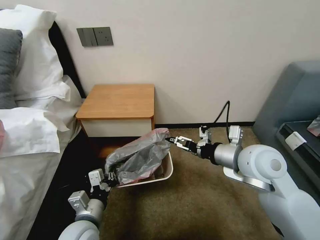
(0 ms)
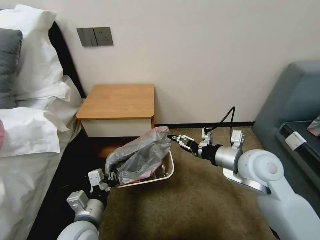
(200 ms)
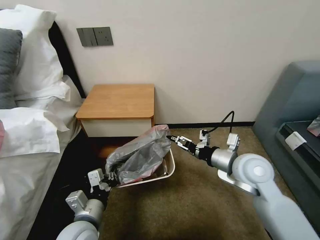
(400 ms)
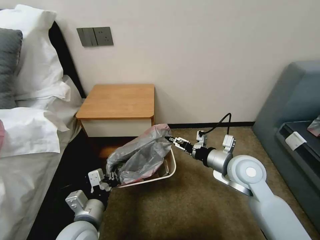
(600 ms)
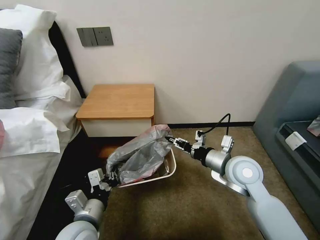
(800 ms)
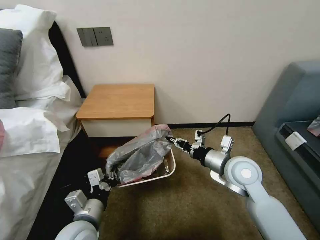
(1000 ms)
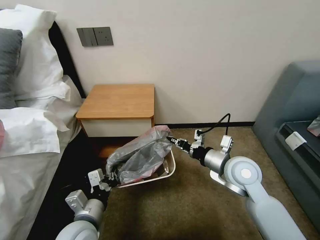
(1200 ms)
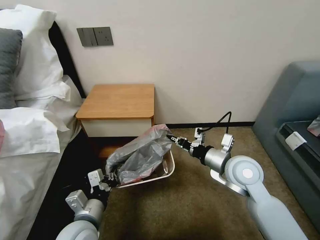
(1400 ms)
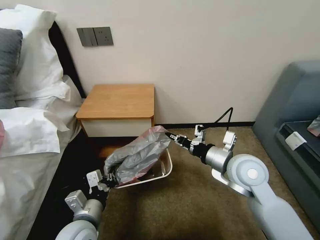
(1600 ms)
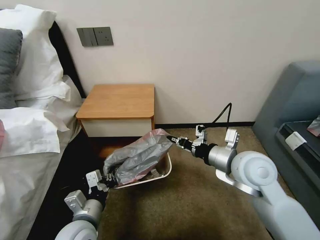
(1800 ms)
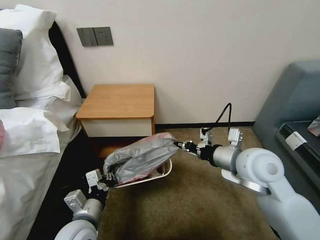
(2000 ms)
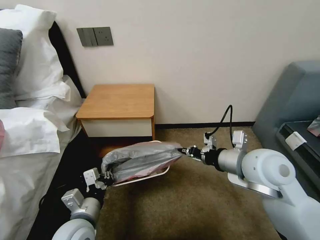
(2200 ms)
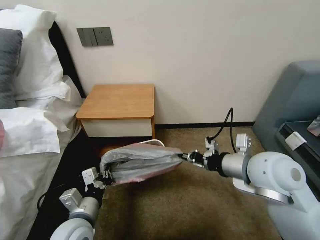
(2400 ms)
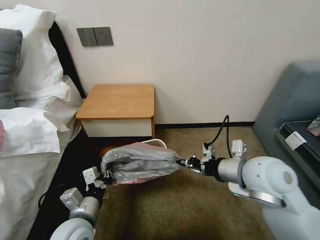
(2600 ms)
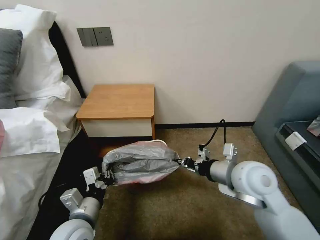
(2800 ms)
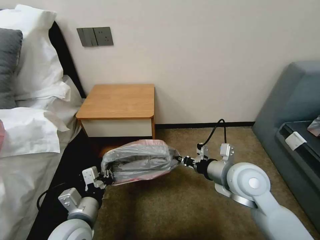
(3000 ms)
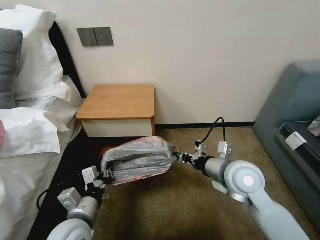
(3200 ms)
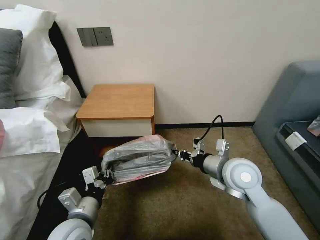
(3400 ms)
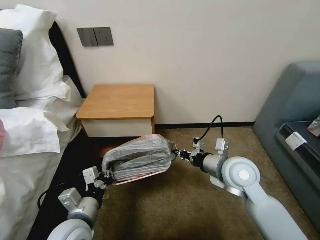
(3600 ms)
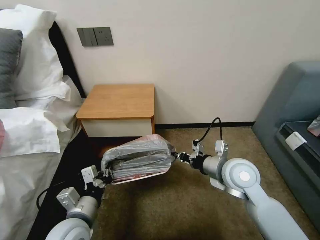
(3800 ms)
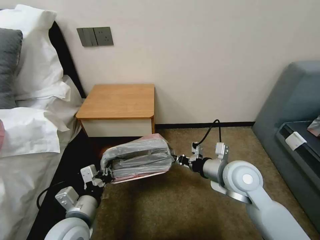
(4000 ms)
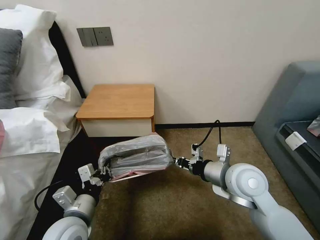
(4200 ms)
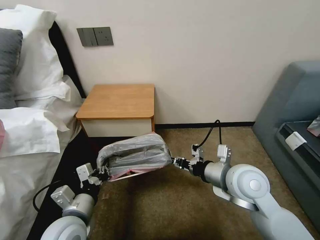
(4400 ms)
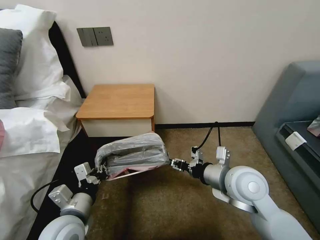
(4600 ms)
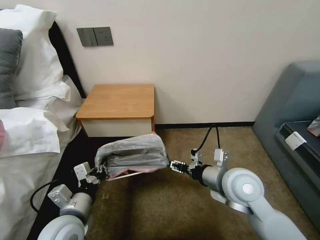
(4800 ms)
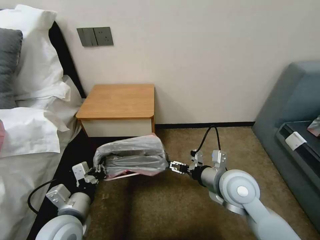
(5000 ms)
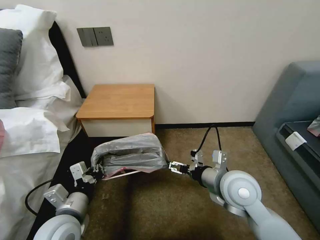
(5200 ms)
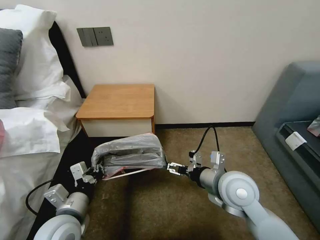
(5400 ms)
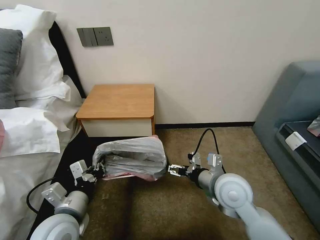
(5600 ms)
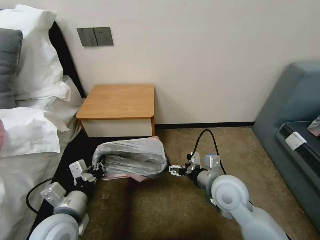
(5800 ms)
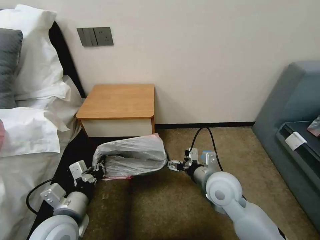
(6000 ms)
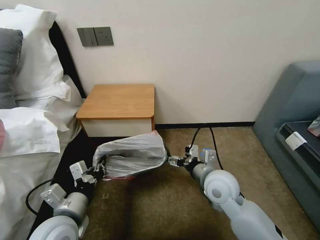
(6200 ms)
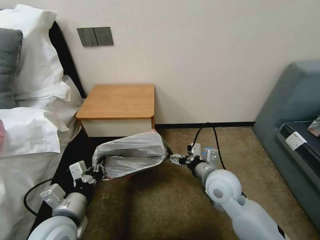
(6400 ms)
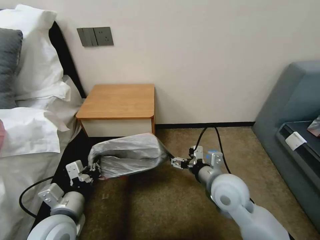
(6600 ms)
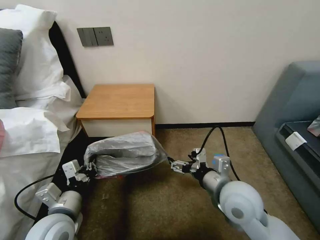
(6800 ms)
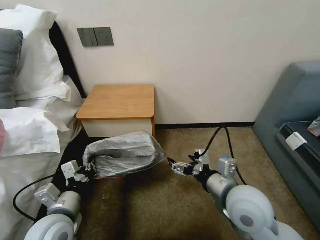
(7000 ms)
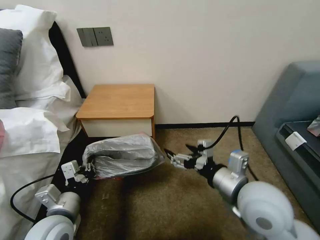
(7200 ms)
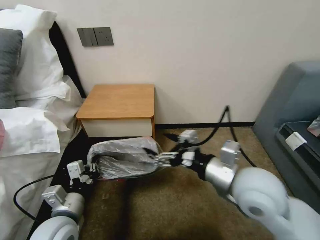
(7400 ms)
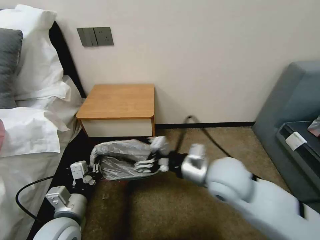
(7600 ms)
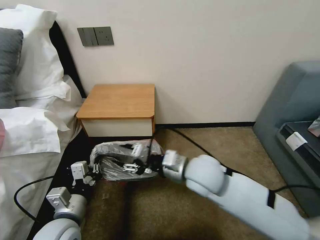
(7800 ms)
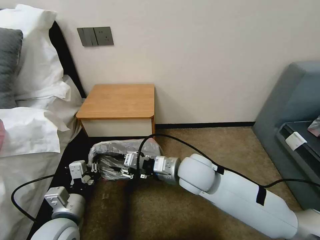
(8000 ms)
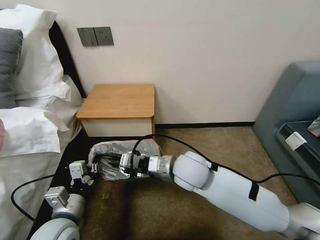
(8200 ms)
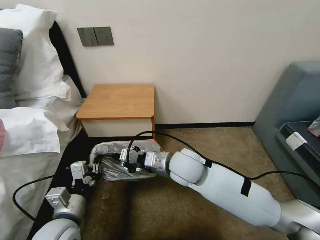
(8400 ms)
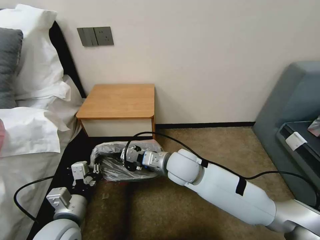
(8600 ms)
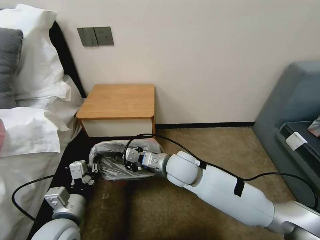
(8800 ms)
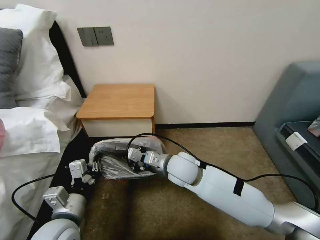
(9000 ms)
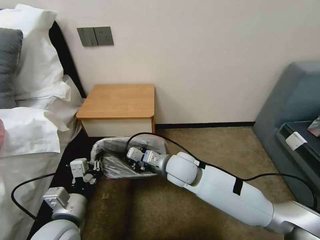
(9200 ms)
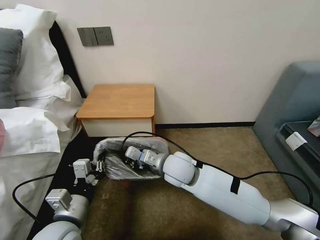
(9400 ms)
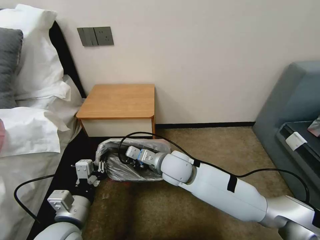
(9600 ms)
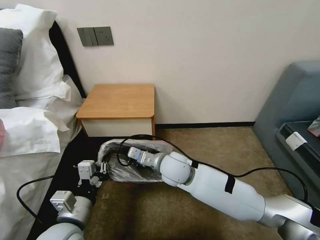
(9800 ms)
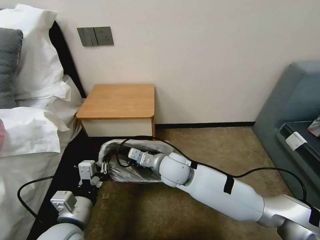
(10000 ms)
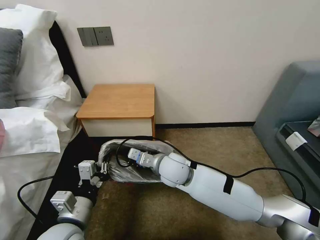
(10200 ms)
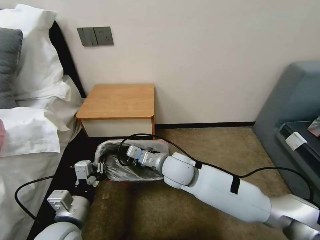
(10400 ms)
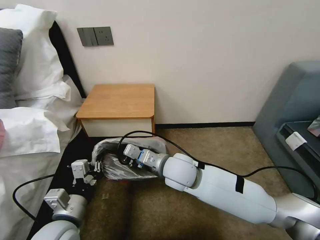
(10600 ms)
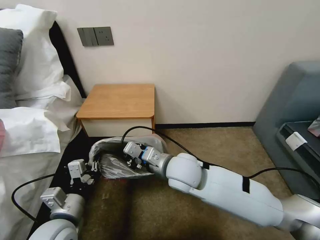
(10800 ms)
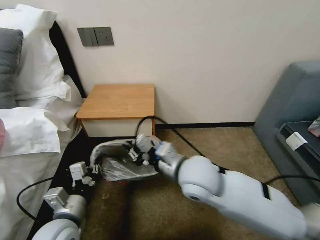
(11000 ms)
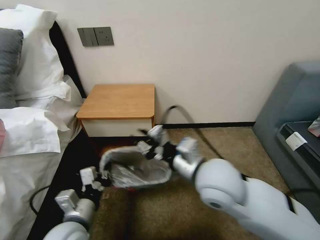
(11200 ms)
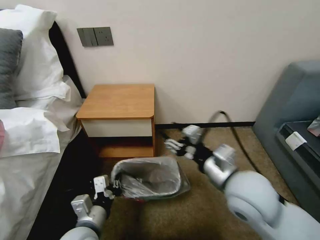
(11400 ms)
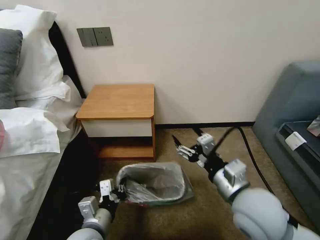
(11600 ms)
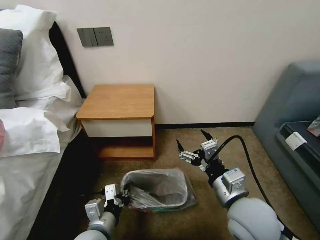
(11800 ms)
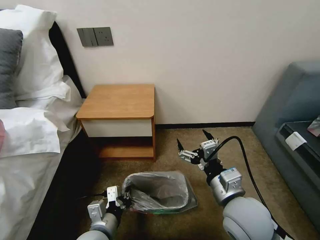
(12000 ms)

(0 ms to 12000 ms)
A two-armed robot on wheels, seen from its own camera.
Task of the whole recording: Pick up the garbage bag from the table and place it over the trash can.
0 ms - 1600 ms: The right gripper closes its fingers.
3000 ms - 4400 ms: The grippers make only small movements.
4400 ms - 6000 ms: The right gripper shifts roughly 5 cm downward, and opens.
6000 ms - 7600 ms: The right gripper heads upward, covering some 10 cm.
7600 ms - 9000 ms: The right gripper goes roughly 15 cm to the left, downward and forward, and closes up.
9000 ms - 10400 ms: There are only small adjustments of the grippers.
10400 ms - 12000 ms: The right gripper is displaced to the right and backward by roughly 20 cm, and opens its fingers, while the left gripper shifts some 10 cm downward and to the right.

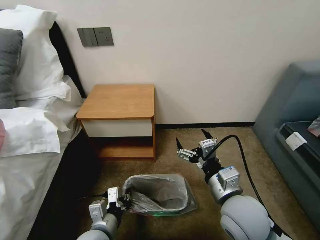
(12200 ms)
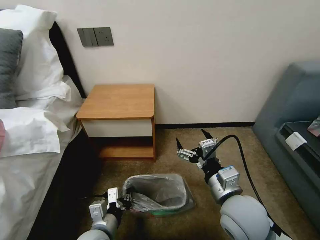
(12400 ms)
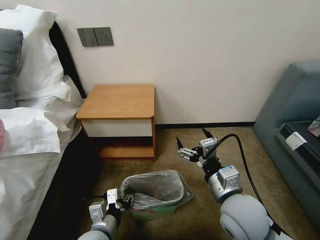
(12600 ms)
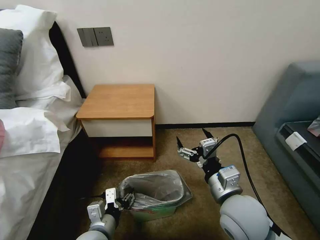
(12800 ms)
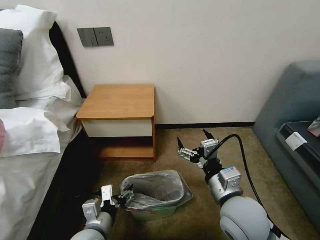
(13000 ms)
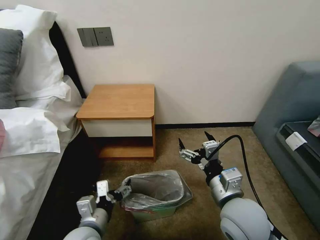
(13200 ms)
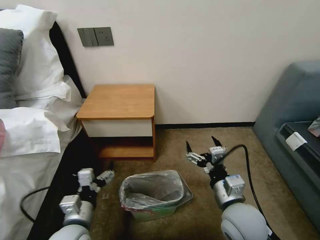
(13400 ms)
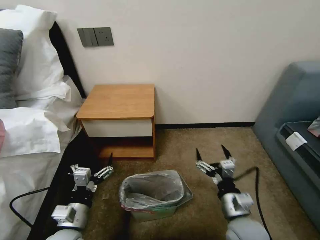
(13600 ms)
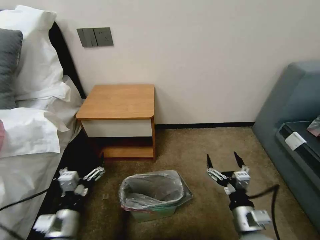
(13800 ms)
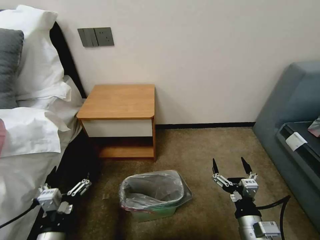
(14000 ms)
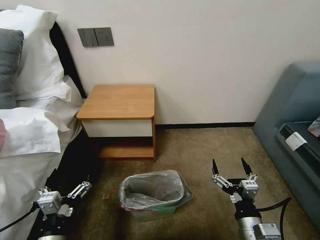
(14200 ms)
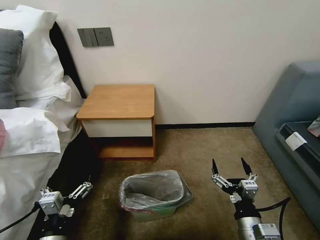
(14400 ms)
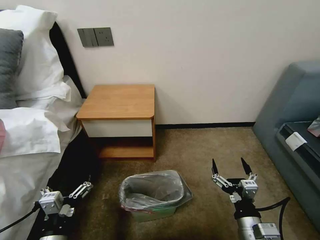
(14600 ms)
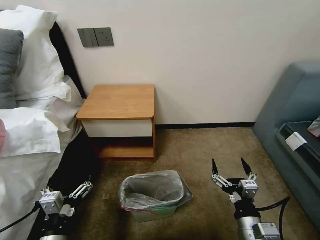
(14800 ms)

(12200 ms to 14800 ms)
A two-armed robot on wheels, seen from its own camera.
Task of the whole recording: Pick up the garbage bag from the table and place it over the trash can.
12200 ms - 13400 ms: The left gripper goes approximately 5 cm to the left, and opens up, while the right gripper shifts by some 5 cm.
13400 ms - 14800 ms: The left gripper shifts some 10 cm backward. The right gripper travels backward and downward by approximately 10 cm.

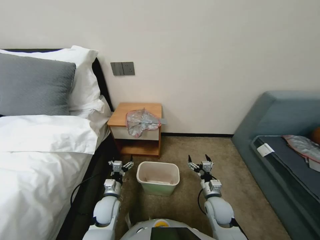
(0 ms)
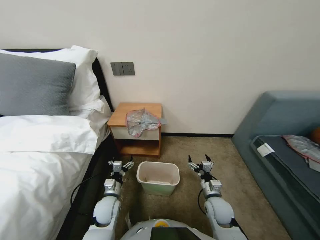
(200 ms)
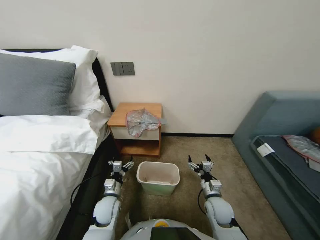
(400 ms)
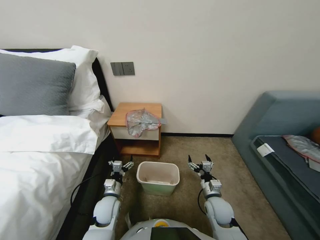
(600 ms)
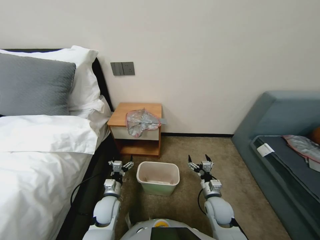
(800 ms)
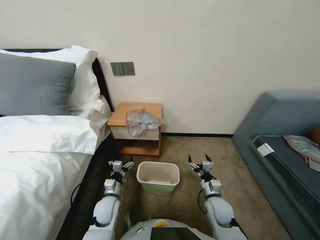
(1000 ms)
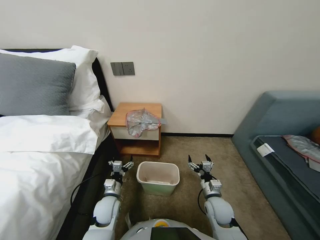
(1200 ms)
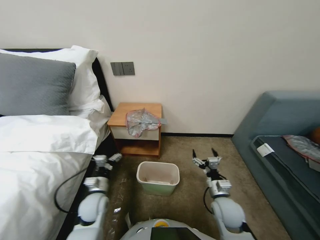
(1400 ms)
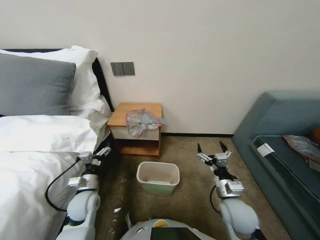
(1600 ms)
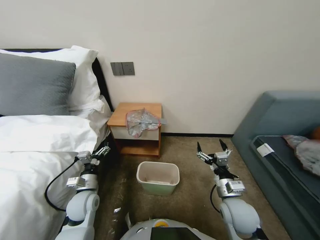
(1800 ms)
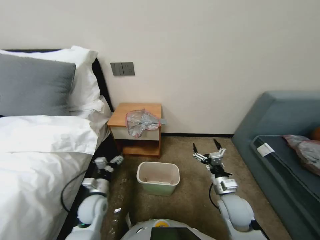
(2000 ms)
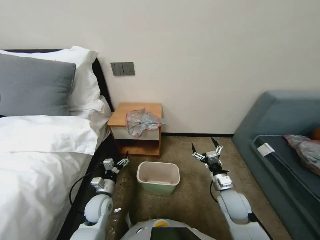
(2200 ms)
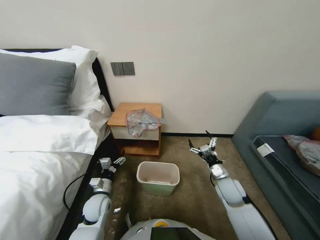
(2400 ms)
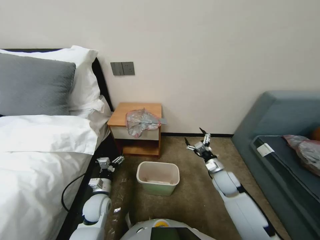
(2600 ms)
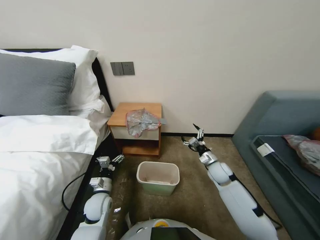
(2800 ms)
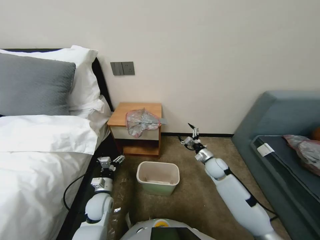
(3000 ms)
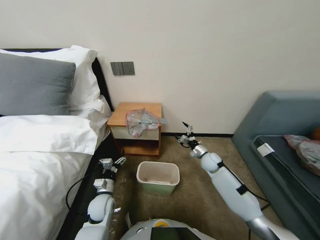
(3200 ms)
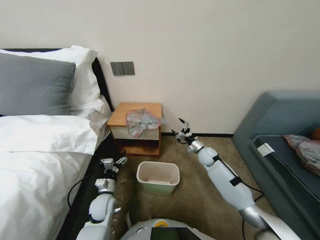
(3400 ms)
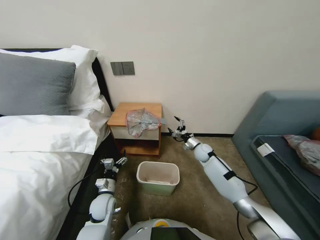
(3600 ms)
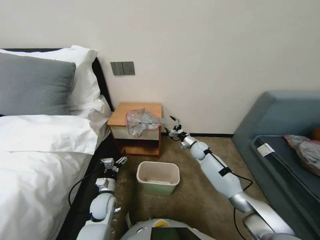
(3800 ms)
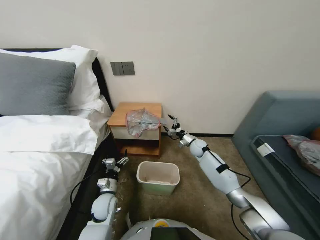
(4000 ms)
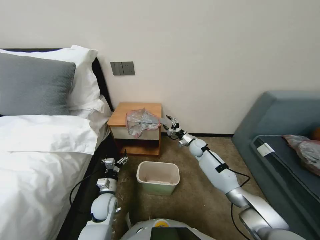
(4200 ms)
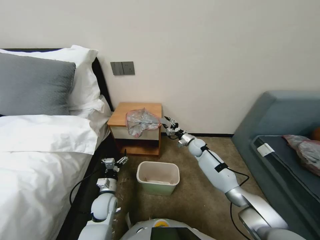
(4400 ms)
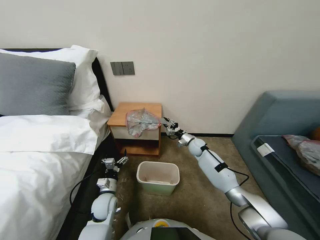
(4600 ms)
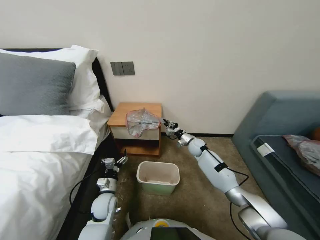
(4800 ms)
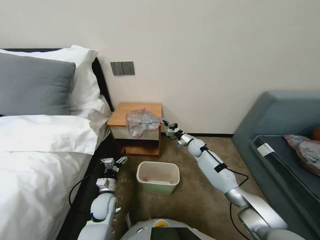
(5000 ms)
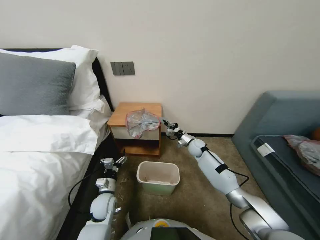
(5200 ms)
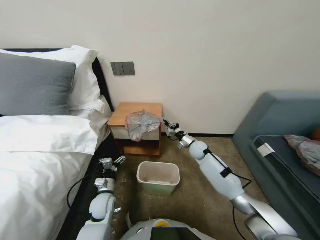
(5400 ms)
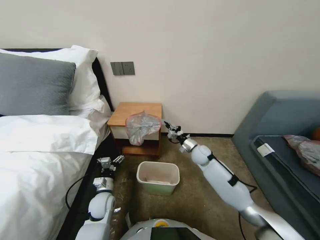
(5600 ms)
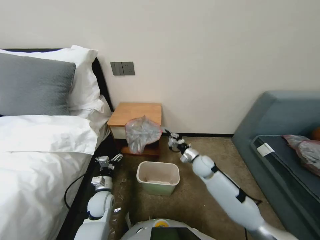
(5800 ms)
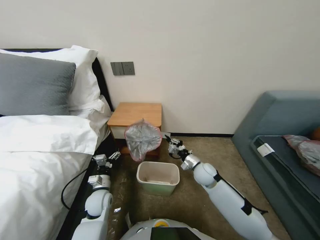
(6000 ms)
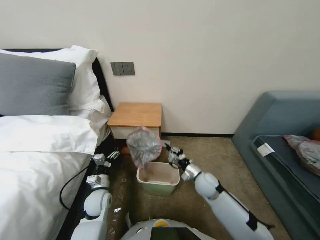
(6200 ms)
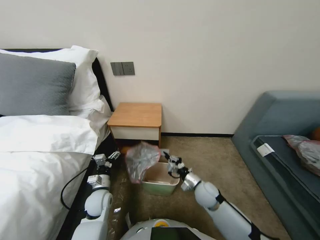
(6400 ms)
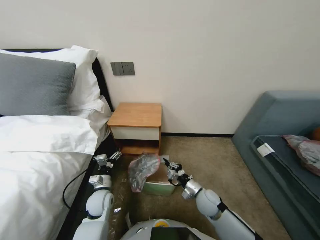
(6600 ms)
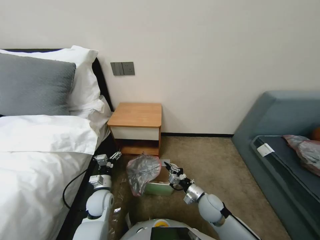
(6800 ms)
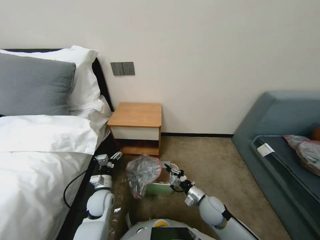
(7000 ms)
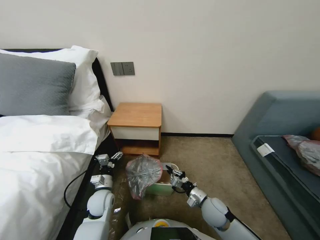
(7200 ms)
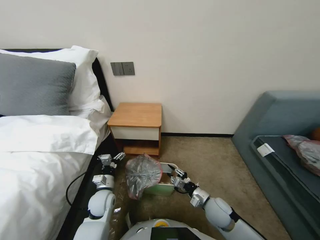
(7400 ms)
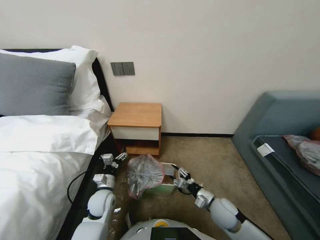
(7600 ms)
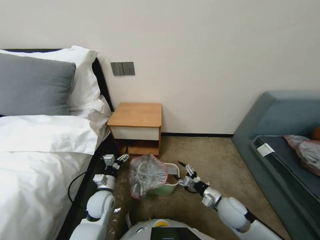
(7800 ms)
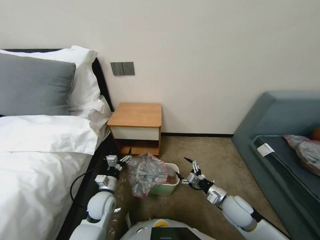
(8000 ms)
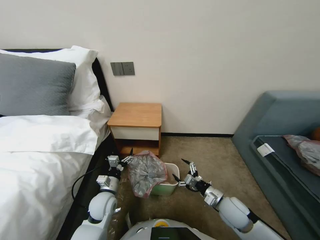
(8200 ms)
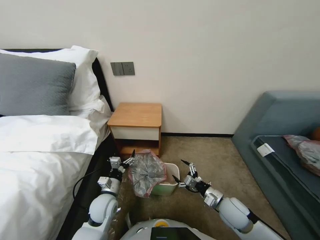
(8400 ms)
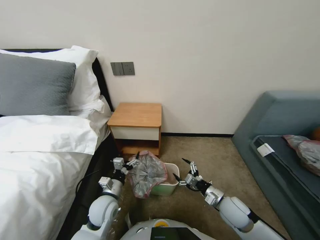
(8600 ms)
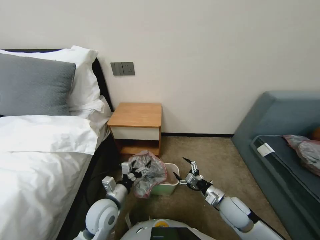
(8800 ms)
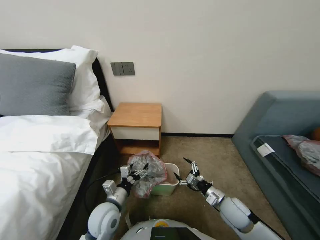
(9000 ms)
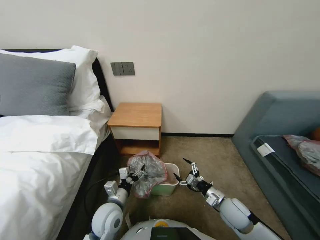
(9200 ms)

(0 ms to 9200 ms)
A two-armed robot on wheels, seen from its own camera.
Task of the whole recording: Pick up the garbage bag from the table and place it over the trash can.
1600 ms - 3000 ms: The right gripper is displaced forward by approximately 20 cm. The left gripper moves about 5 cm.
3000 ms - 4600 ms: The right gripper shifts roughly 15 cm forward and to the left, and closes its fingers.
4600 ms - 6200 ms: The right gripper heads backward, covering approximately 20 cm, and closes up.
6200 ms - 7600 ms: The right gripper heads backward, covering about 10 cm, and opens its fingers.
7600 ms - 9200 ms: The right gripper opens. Meanwhile the left gripper travels backward and to the right by roughly 10 cm.
